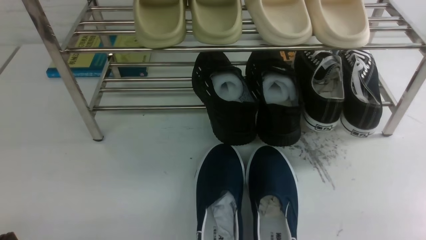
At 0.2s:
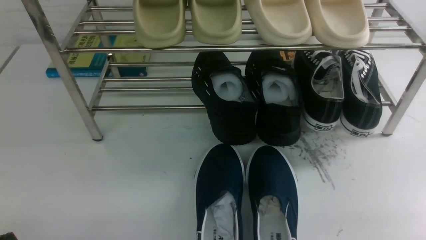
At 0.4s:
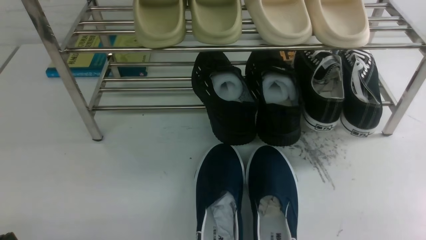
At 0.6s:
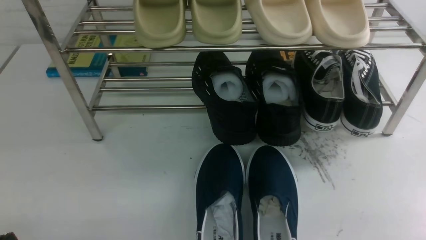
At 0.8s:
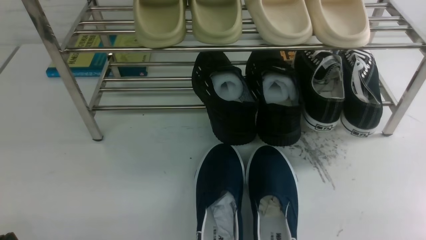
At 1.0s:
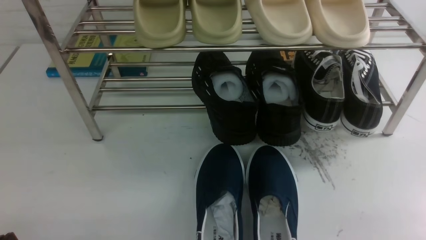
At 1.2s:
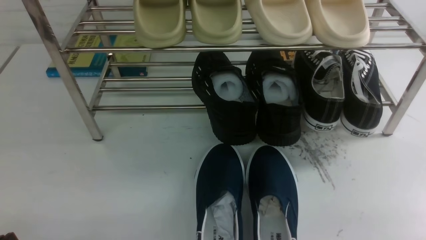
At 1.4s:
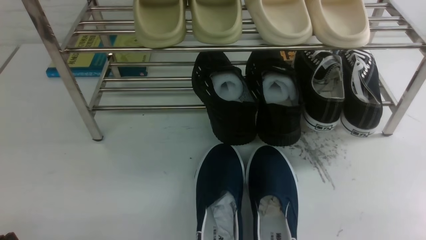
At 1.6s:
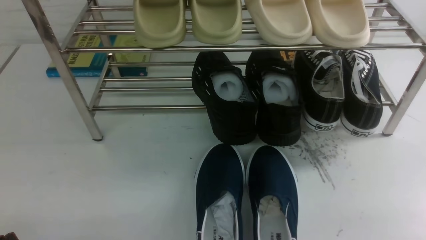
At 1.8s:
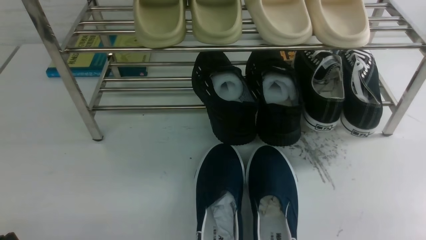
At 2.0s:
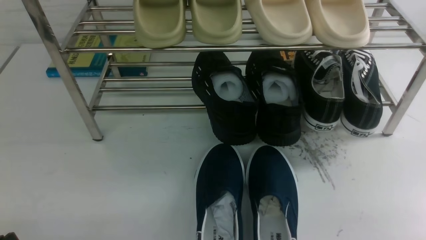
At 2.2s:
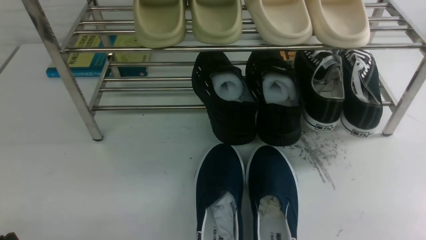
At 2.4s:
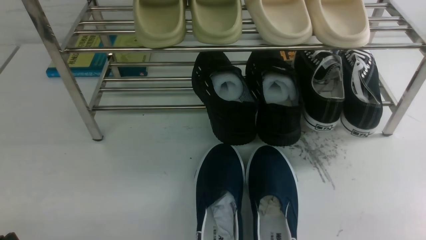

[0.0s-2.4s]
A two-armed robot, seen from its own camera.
0.0s to 2.4s: The two grippers keep their place.
